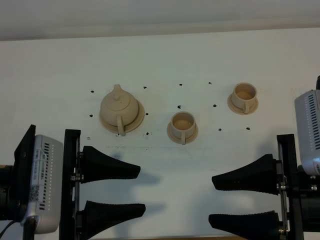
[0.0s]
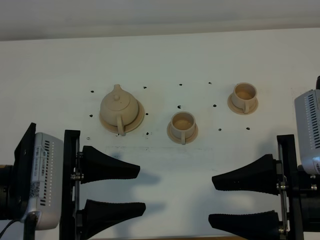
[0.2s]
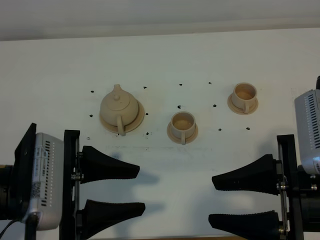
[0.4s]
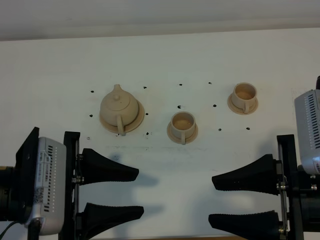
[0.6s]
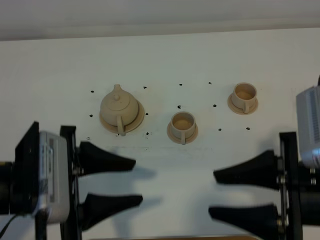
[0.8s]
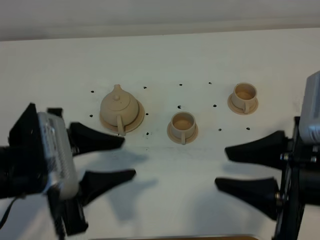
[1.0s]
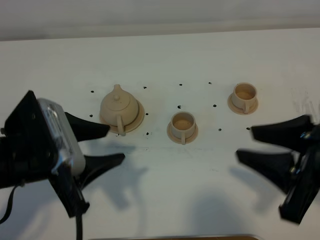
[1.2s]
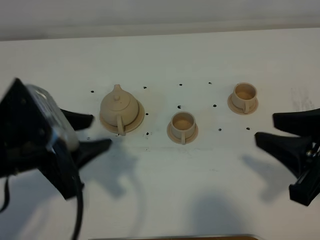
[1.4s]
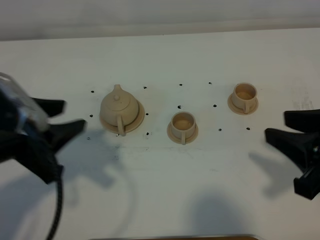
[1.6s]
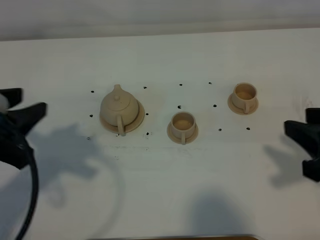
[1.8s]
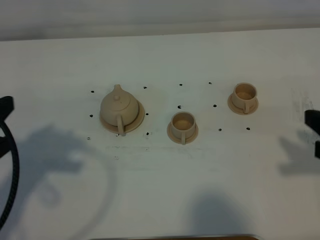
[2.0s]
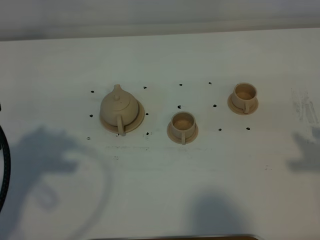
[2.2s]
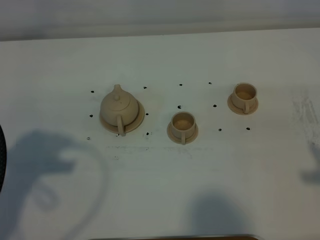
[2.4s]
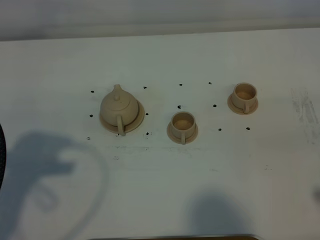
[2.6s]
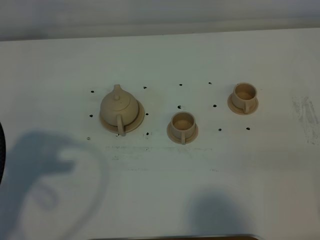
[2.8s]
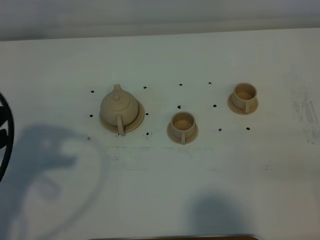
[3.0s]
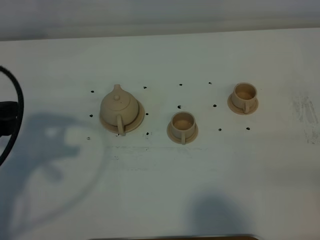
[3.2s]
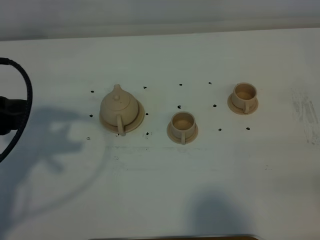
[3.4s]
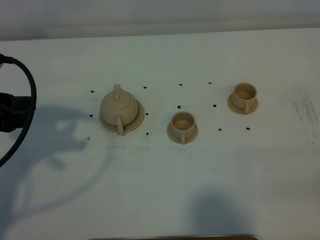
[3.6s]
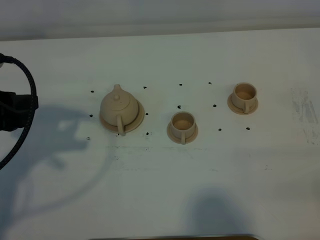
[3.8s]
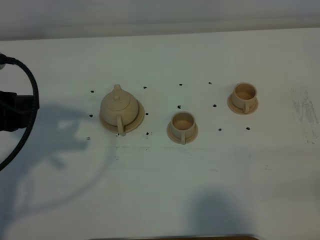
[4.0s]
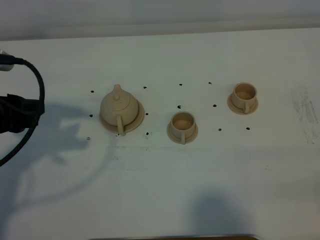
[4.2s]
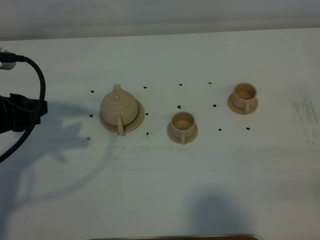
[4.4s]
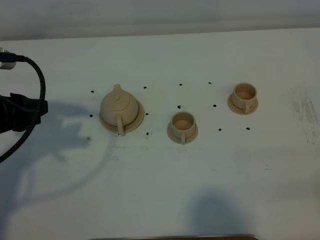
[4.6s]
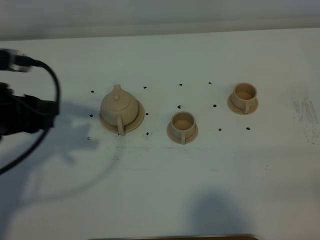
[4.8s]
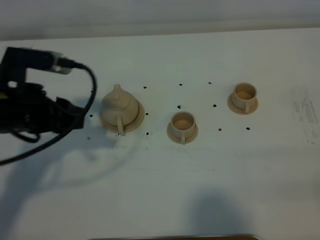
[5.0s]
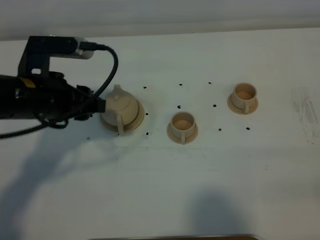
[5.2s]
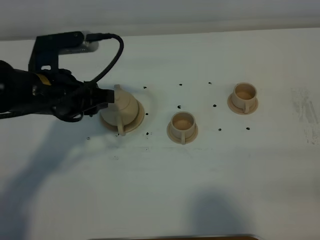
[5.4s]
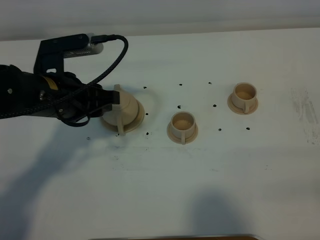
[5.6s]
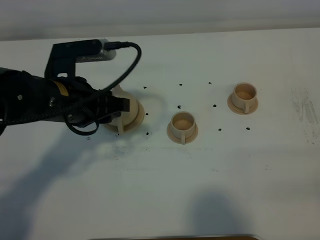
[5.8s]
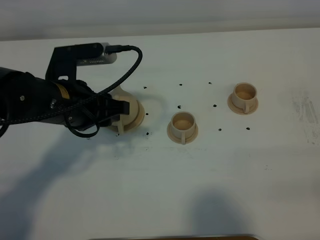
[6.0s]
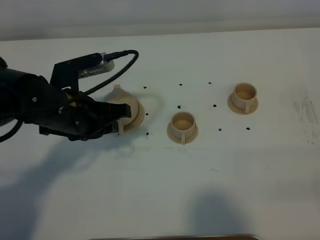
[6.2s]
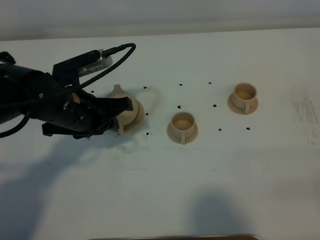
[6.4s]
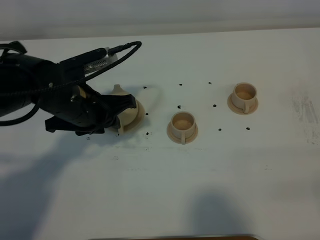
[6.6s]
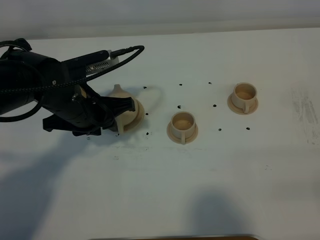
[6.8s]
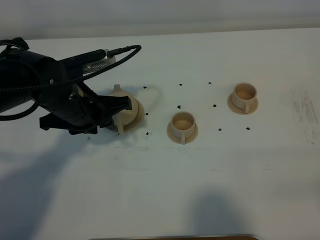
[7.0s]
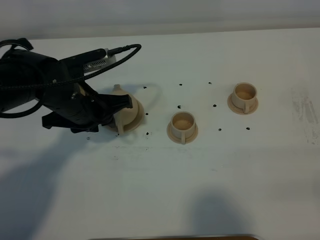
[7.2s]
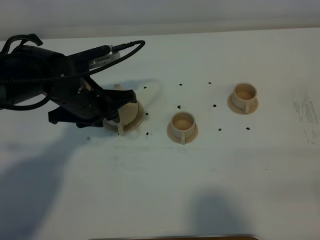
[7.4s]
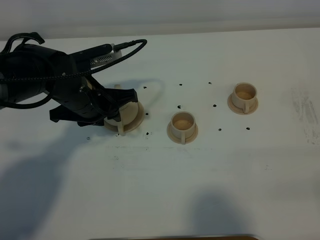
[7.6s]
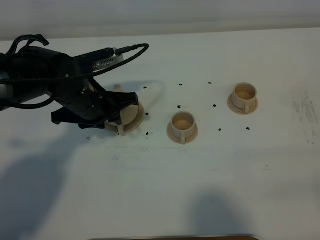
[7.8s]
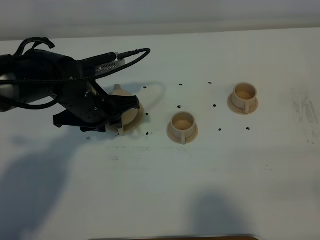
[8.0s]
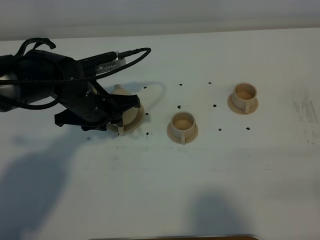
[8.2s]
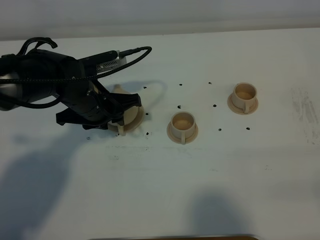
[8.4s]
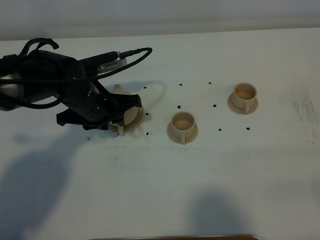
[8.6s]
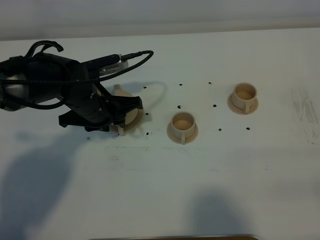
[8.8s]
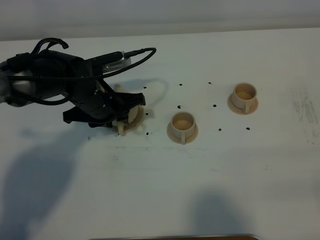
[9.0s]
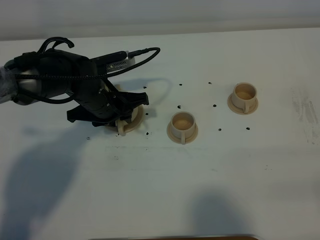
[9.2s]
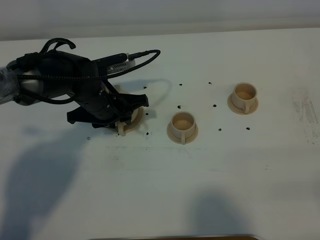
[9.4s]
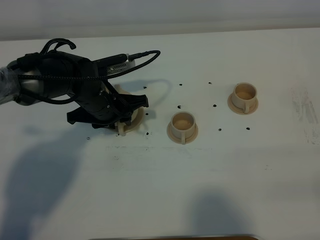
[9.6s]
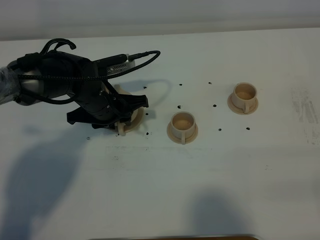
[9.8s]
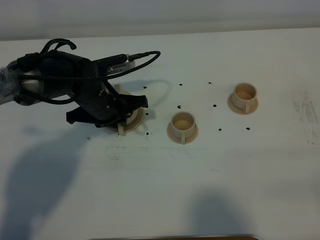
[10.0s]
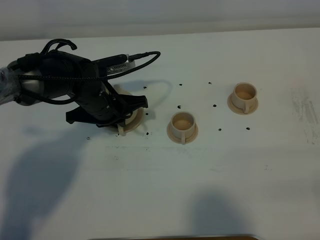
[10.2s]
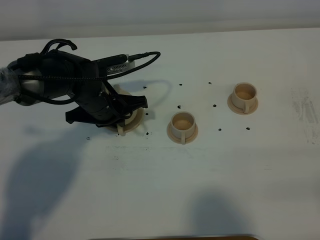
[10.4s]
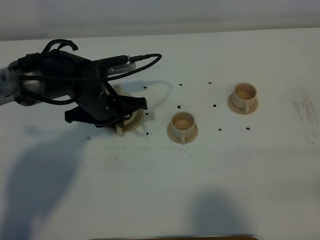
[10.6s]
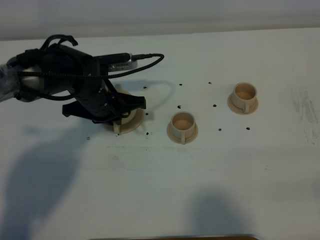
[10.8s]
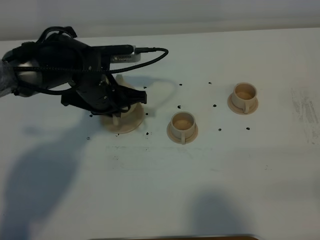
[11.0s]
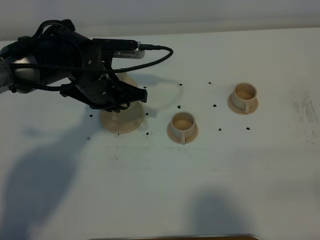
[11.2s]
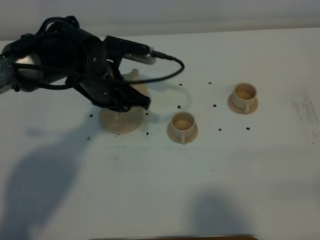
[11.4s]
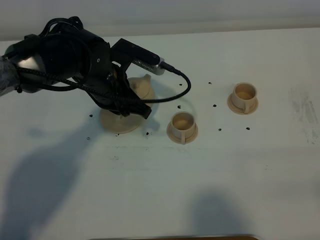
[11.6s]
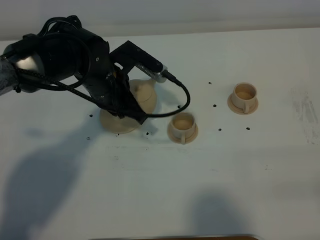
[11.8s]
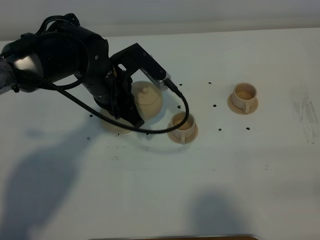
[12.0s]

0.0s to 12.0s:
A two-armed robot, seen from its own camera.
Task of the whole recording: grasp the brown teapot and pour the tea into the two brown teacups one by one, put the brown teapot back in its original place.
Step, 0.0s to 10.6s: Pick up the teapot with the left gripper.
0.0s to 1.6s: The right gripper travels to the right by approximately 5 cm. Meanwhile the left gripper is displaced to the left by some 5 cm.
1.6s to 3.0s: The left gripper goes roughly 5 cm to the left, while the right gripper travels backward and to the right by roughly 15 cm.
3.0s to 4.4s: The left gripper shifts about 5 cm forward.
4.4s to 6.0s: The left gripper is displaced to the right by some 15 cm.
6.0s to 7.6s: The left gripper is displaced forward by approximately 5 cm.
7.6s to 9.0s: The grippers stay close to where they were, moving slightly.
9.0s to 10.4s: The left gripper closes.
10.4s to 12.0s: The left gripper moves upward, some 5 cm.

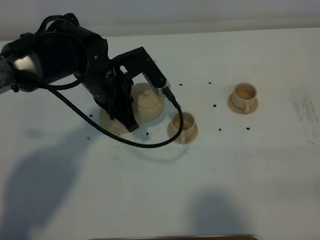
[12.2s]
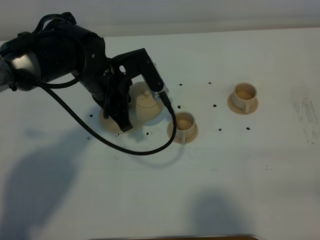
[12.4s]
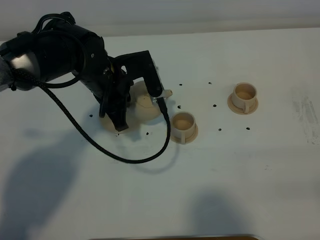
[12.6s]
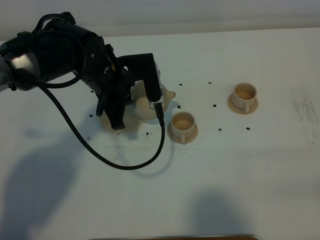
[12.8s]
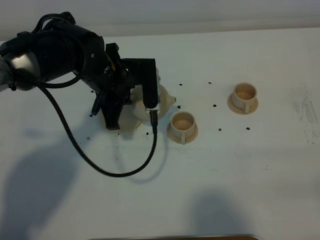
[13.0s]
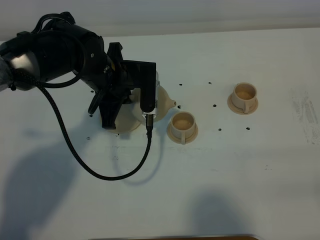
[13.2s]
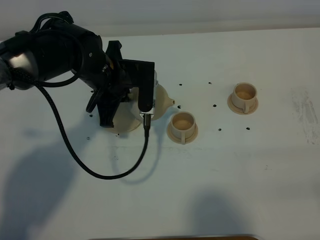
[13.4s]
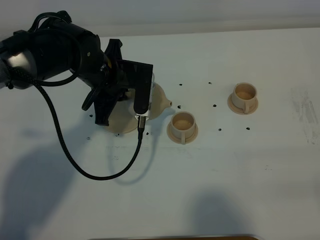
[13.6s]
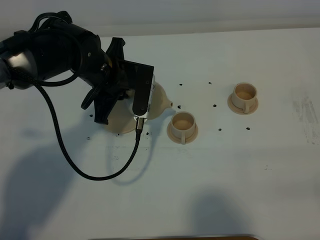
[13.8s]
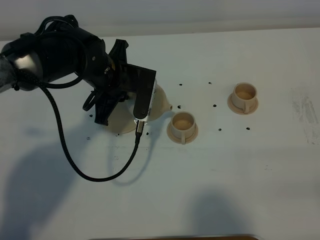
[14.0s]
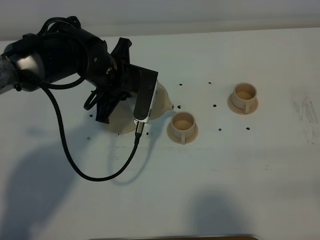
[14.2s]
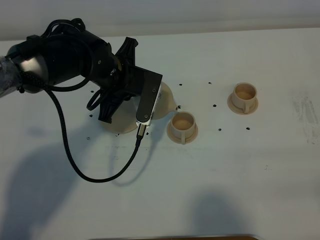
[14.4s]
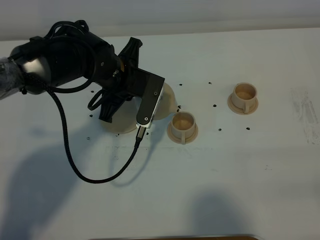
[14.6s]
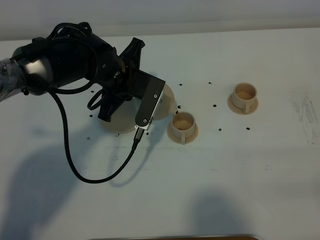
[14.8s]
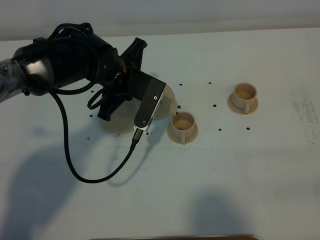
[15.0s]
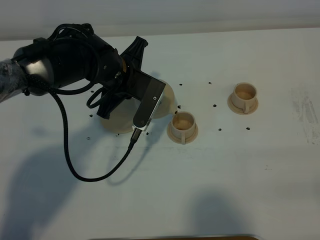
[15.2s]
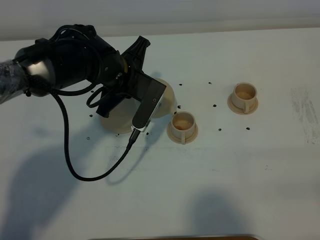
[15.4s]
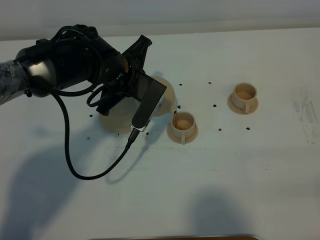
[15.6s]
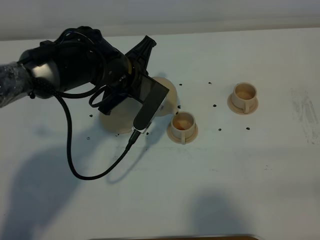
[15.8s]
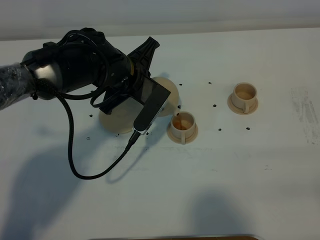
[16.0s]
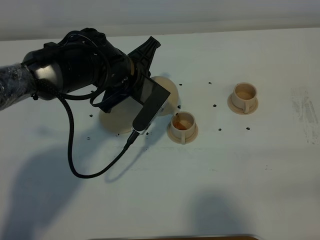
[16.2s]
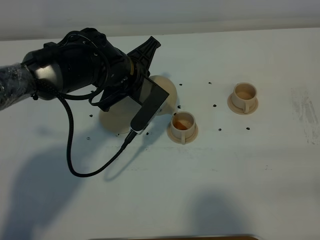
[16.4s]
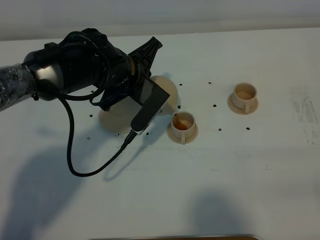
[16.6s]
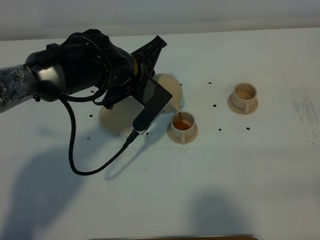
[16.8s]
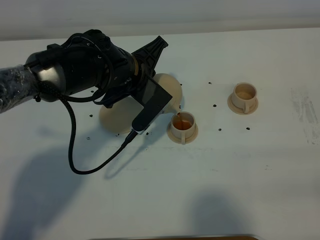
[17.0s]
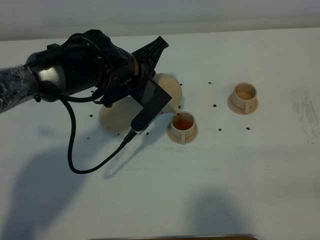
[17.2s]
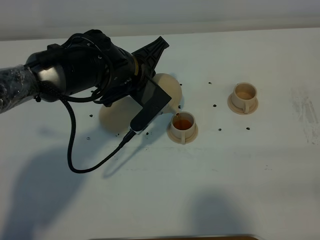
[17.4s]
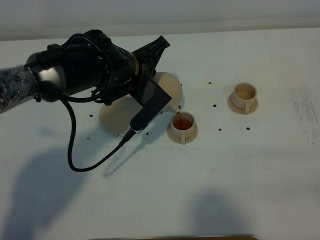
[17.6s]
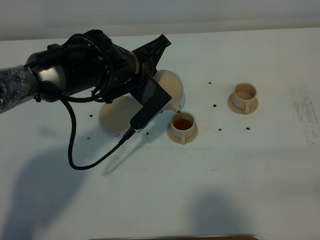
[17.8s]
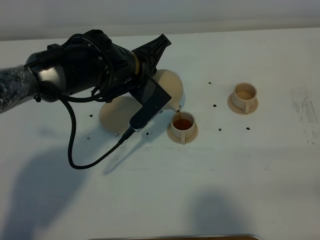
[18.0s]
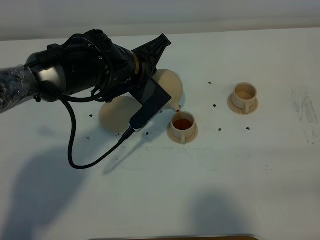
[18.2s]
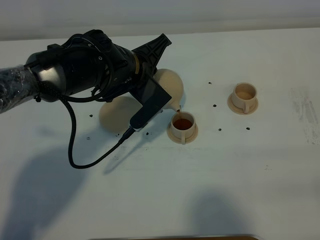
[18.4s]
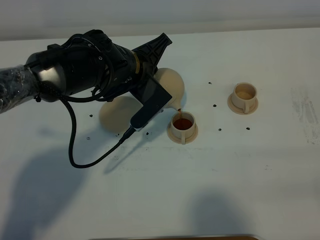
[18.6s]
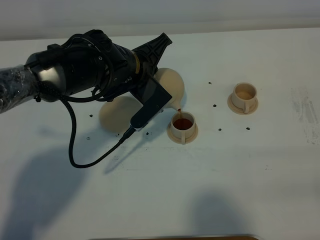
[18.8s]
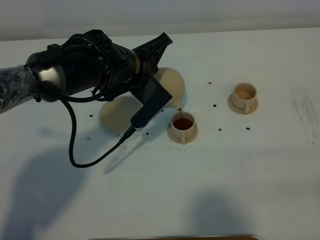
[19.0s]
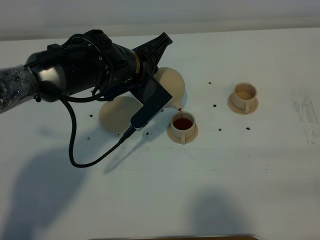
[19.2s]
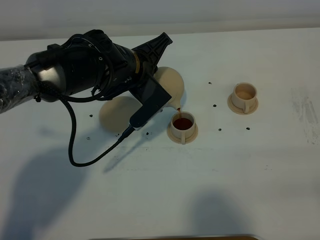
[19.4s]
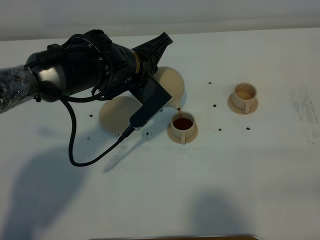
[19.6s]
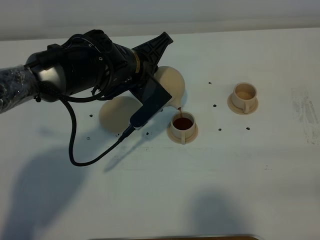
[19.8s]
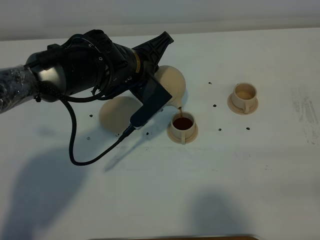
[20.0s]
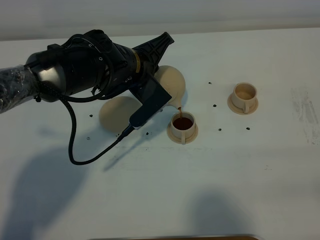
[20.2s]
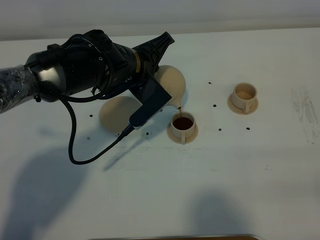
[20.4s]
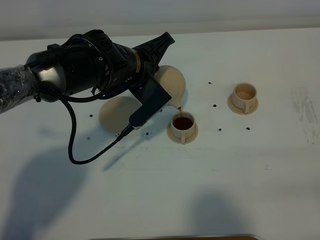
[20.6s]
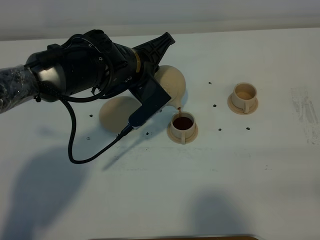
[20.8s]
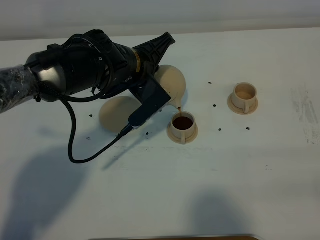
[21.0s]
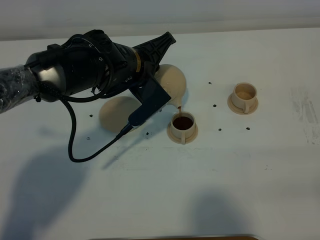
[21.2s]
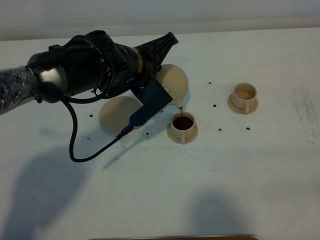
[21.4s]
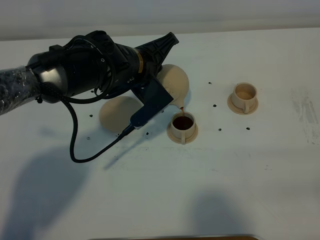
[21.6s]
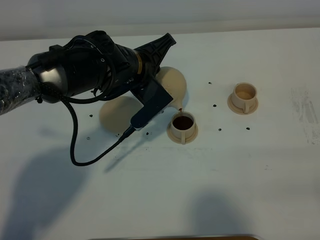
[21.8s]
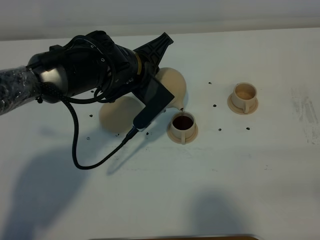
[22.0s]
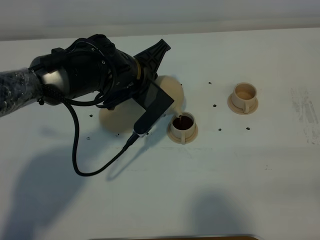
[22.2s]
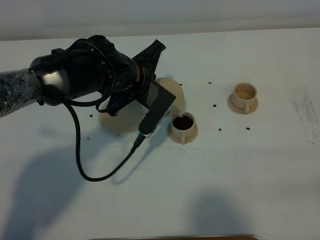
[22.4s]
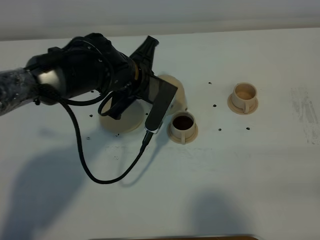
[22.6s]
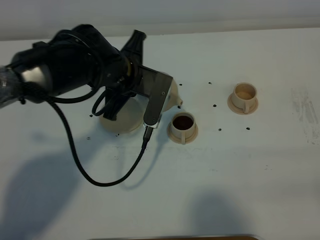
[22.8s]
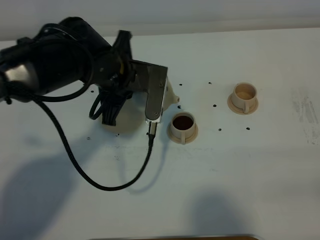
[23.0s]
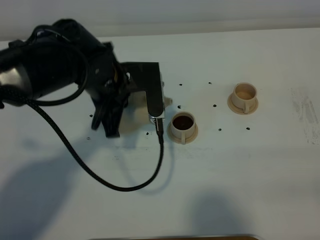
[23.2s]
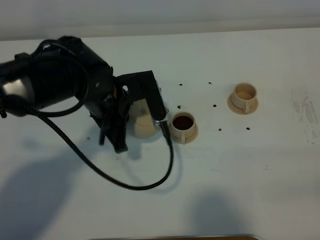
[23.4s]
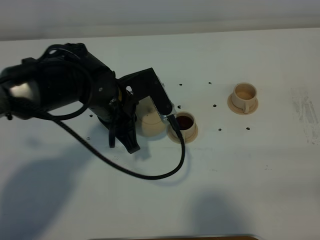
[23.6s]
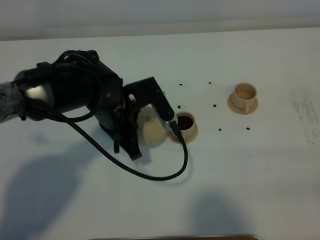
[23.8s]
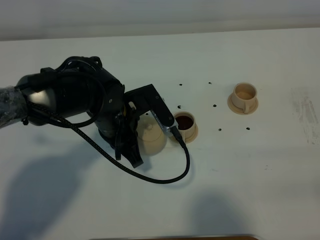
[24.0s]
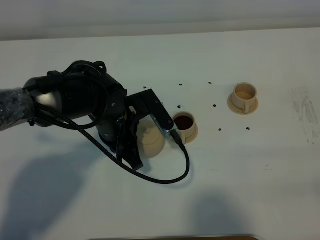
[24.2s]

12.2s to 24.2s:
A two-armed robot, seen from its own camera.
Task of the whole recording: grasp the brown teapot and pour the tea into the two brown teacups one by one, put the brown teapot back in its original place.
15.2s to 16.6s: The grippers stay close to where they were, moving slightly.
16.6s to 18.2s: The grippers stay close to where they were, moving slightly.
18.2s to 19.8s: The two grippers keep their place.
19.8s to 21.2s: Both grippers stay put.
22.6s to 24.2s: The left gripper heads backward and downward, covering approximately 10 cm.
